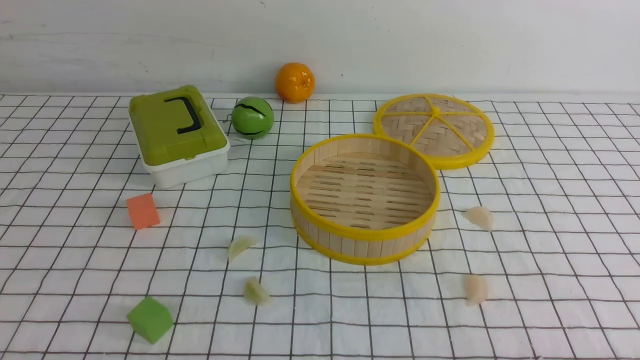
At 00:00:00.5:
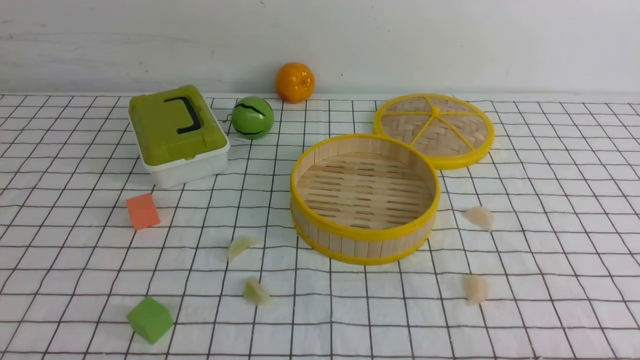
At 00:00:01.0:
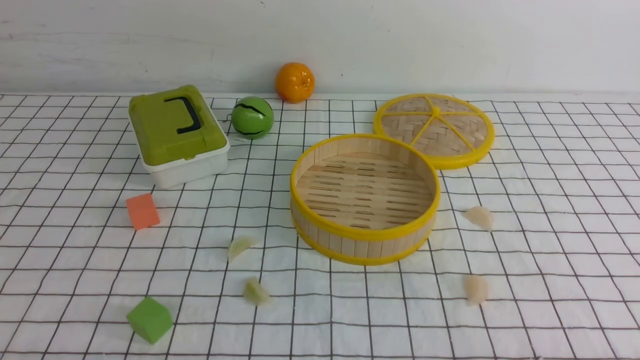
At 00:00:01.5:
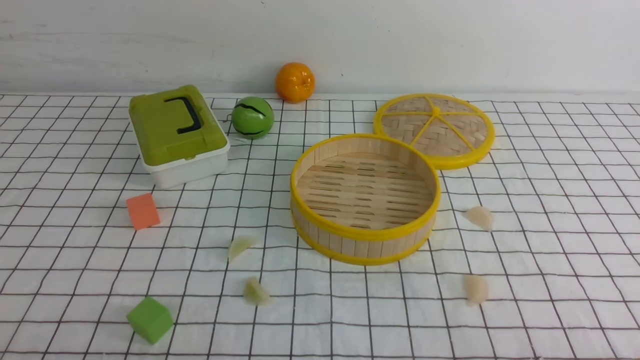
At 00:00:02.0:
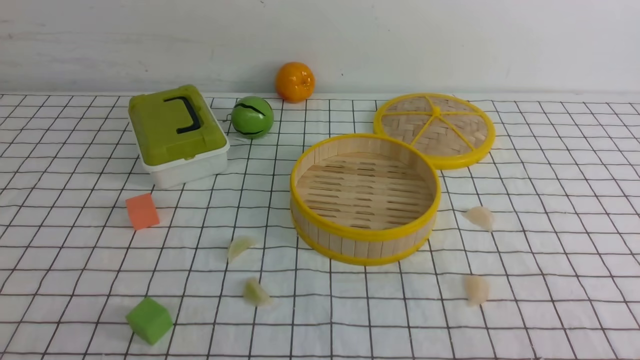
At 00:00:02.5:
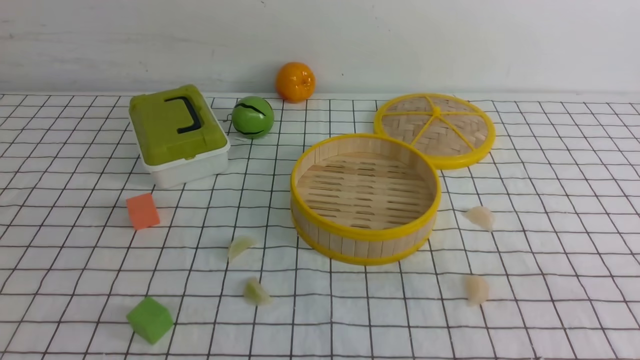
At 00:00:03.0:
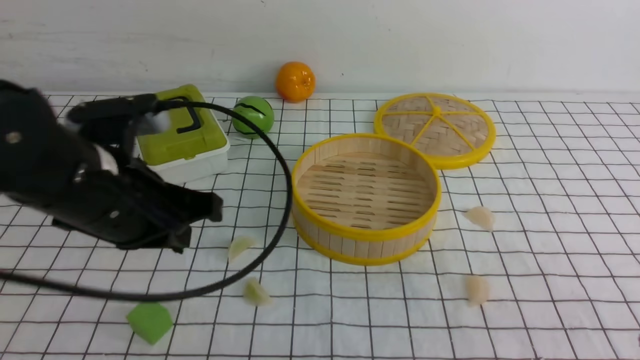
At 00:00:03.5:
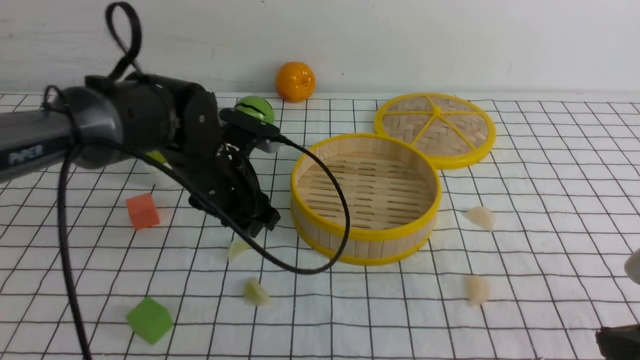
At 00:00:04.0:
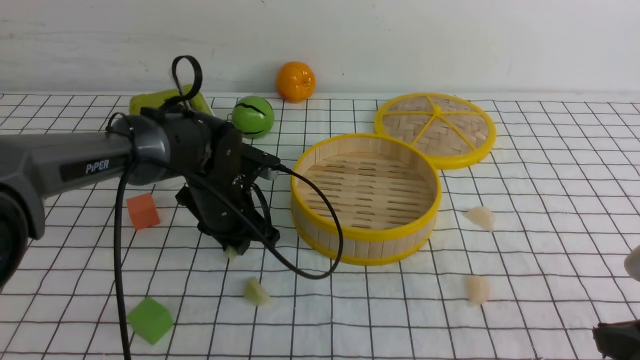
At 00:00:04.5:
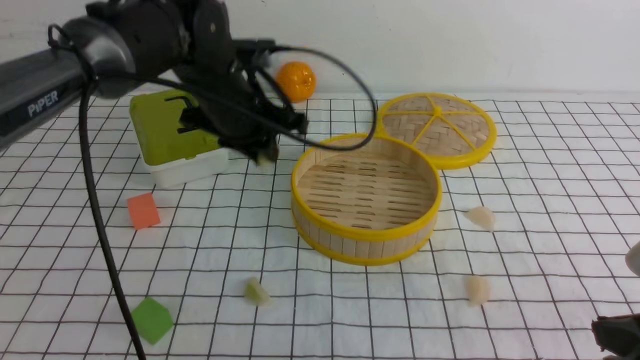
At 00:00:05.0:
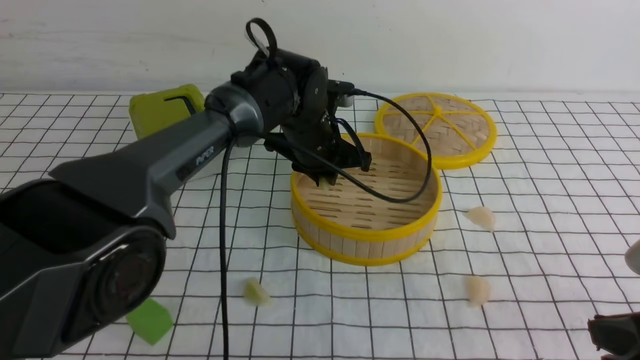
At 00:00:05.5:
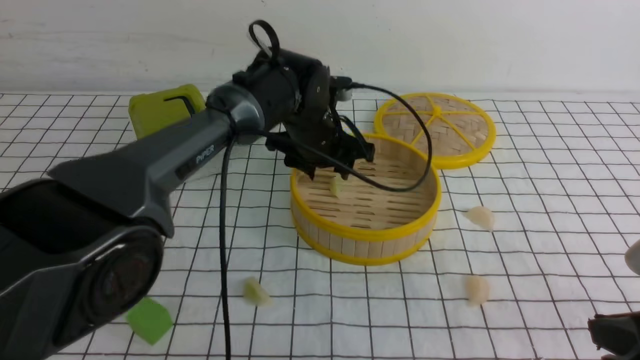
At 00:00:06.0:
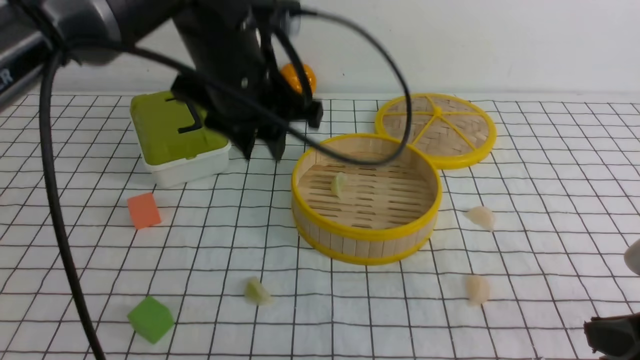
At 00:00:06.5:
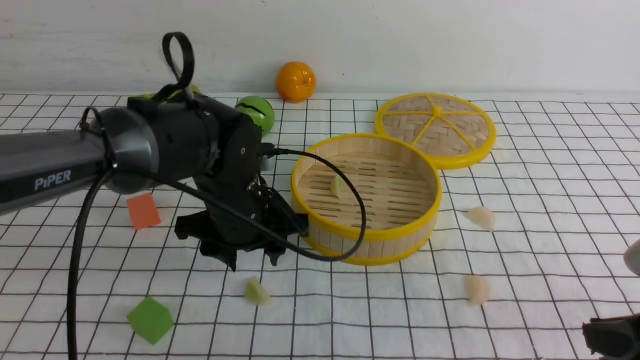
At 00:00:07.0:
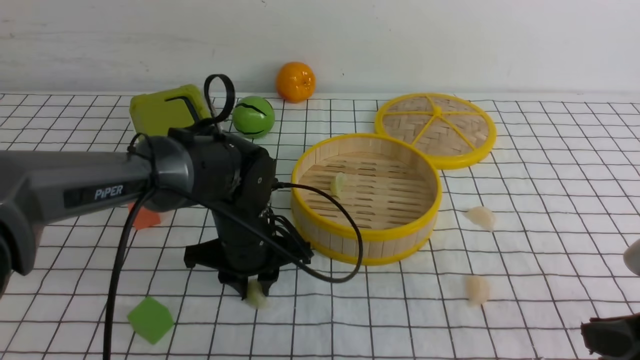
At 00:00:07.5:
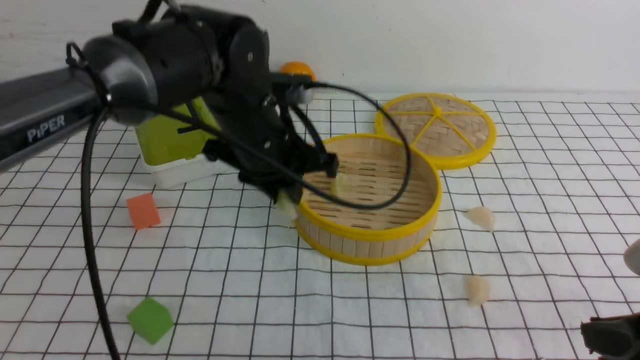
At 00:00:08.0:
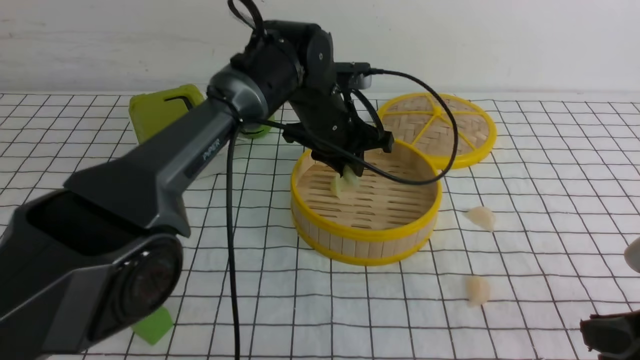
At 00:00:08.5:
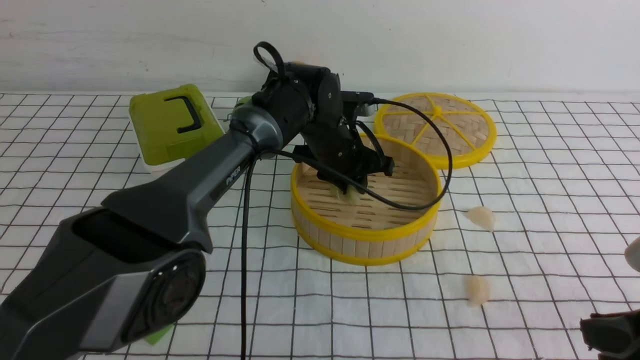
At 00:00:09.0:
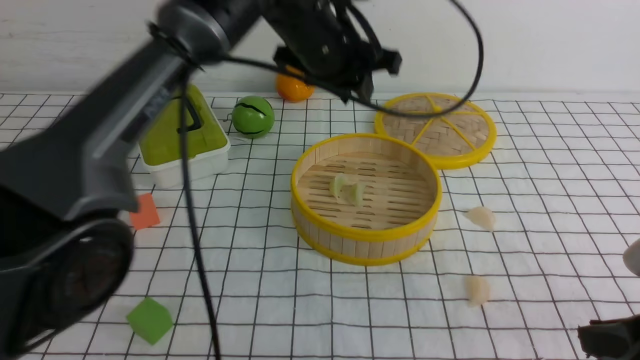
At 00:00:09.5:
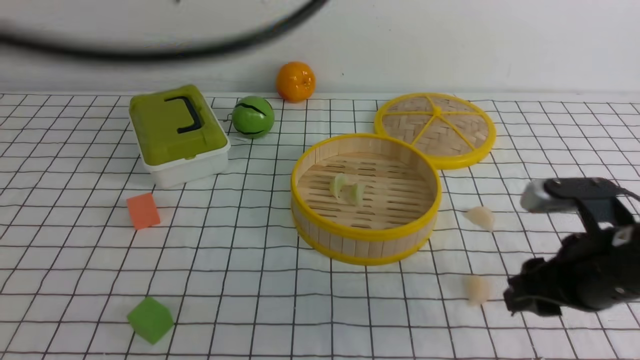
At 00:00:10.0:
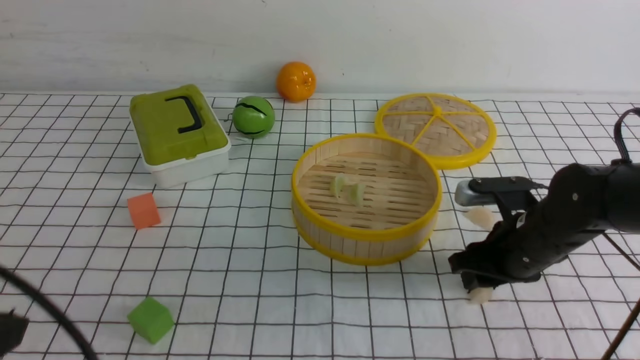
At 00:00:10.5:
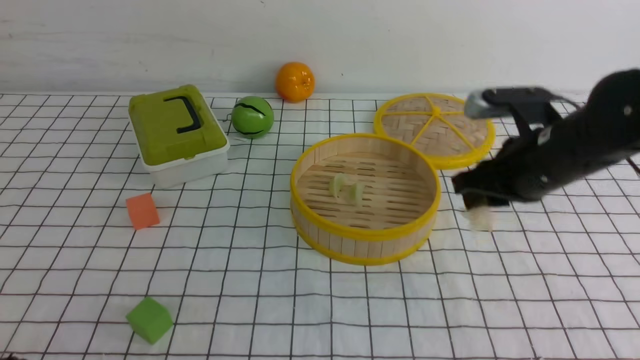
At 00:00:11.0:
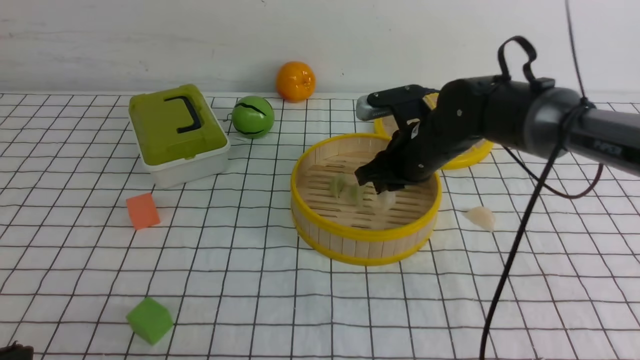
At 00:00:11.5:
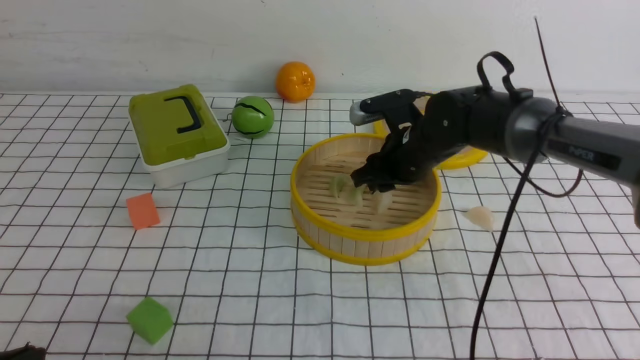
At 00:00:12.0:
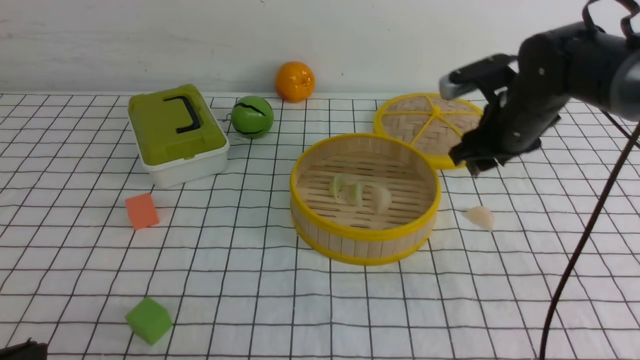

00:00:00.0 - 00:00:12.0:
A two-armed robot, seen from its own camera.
Task of the whole recording: put the dumplings into the steamer on the table with the white tablecloth.
Step, 00:00:00.0 - 00:00:04.0: use the left arm to grab a dumpling.
Step, 00:00:04.5 - 00:00:05.5: use the left arm to put the dumpling into the steamer.
Step, 00:00:06.0 - 00:00:07.0: use the left arm to grab a dumpling.
Step, 00:00:07.5 - 00:00:08.5: use the left arm to put the dumpling into the steamer.
Step, 00:00:09.0 - 00:00:10.0: use the right arm to grab a dumpling.
Step, 00:00:10.5 - 00:00:11.5: use the right arm to put the dumpling into the steamer.
00:00:02.0 - 00:00:04.0: The right gripper heads forward, covering about 10 cm, while the left gripper goes roughly 40 cm forward and to the right.
00:00:04.0 - 00:00:06.0: The left gripper swings up and down, about 15 cm each way, with 2 reversals.
00:00:06.0 - 00:00:08.0: The left gripper travels forward, downward and to the right by some 15 cm.
00:00:08.0 - 00:00:10.0: The right gripper heads forward and downward, covering roughly 20 cm, and opens its fingers. Meanwhile the left gripper is displaced backward and to the left by approximately 40 cm, and closes.
00:00:10.0 - 00:00:12.0: The left gripper goes about 5 cm downward. The right gripper is displaced forward and upward by roughly 15 cm.

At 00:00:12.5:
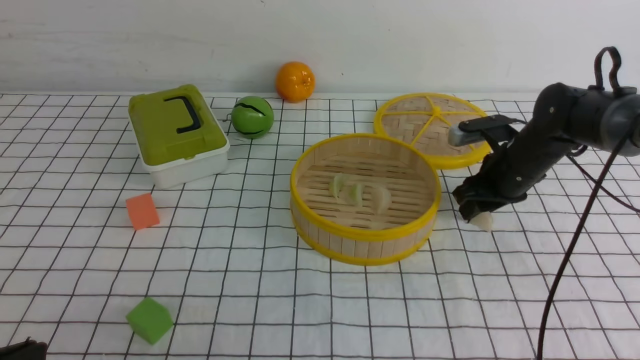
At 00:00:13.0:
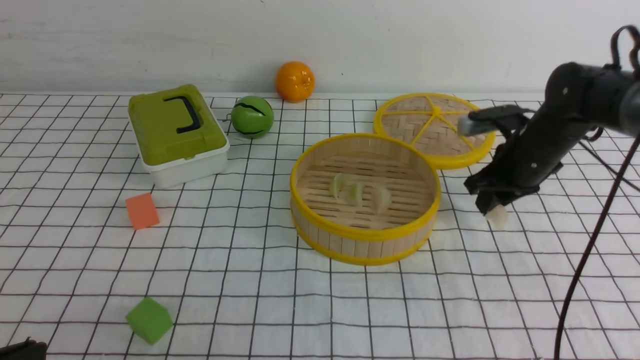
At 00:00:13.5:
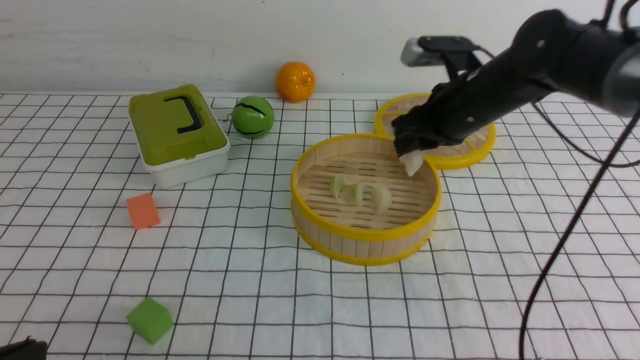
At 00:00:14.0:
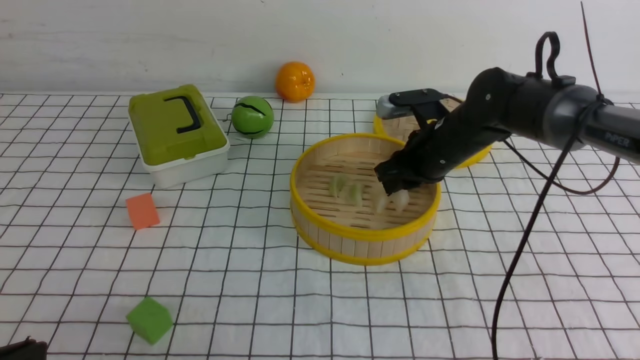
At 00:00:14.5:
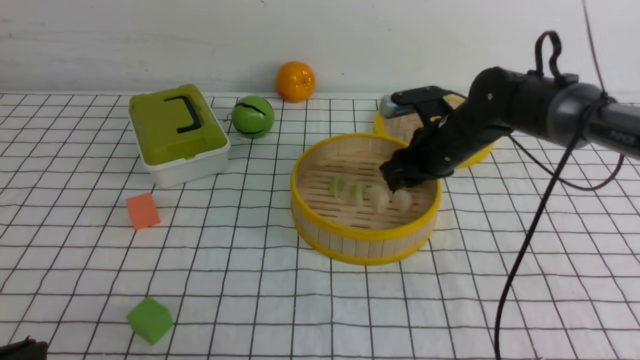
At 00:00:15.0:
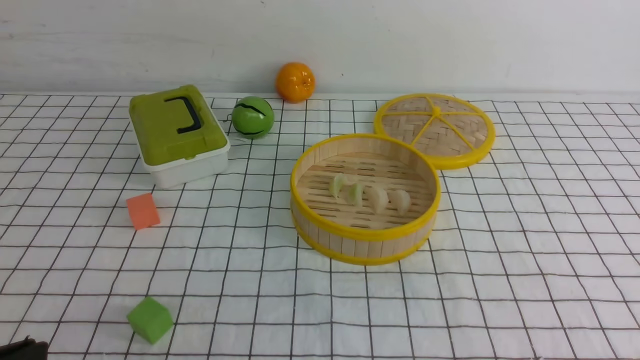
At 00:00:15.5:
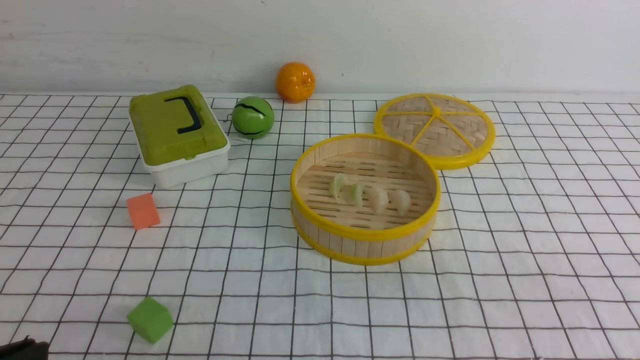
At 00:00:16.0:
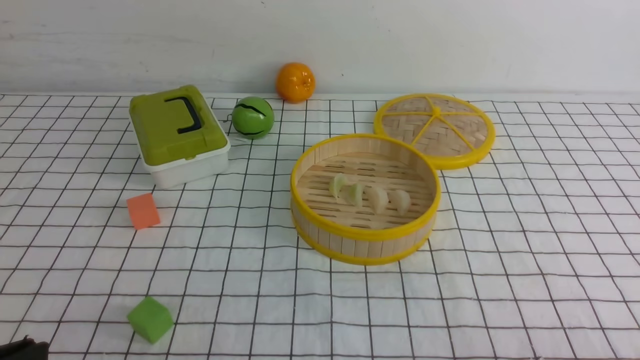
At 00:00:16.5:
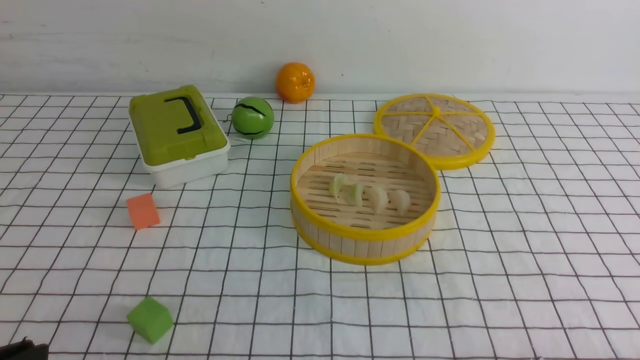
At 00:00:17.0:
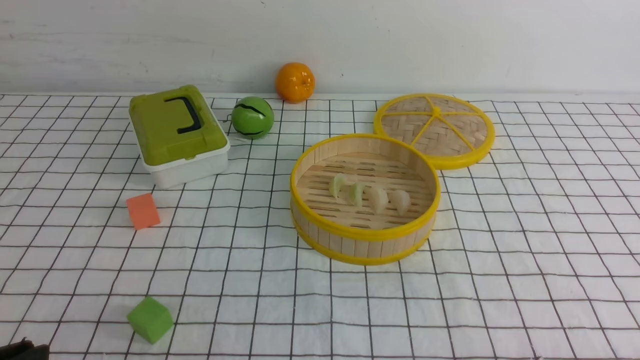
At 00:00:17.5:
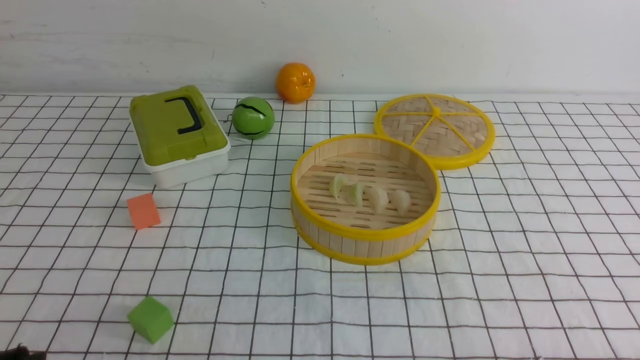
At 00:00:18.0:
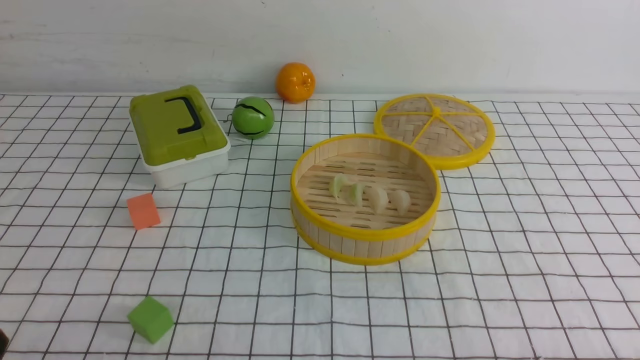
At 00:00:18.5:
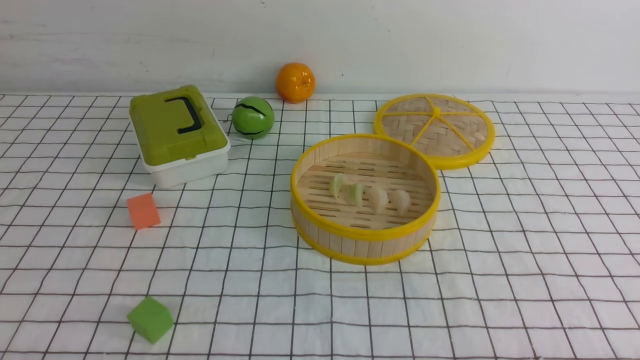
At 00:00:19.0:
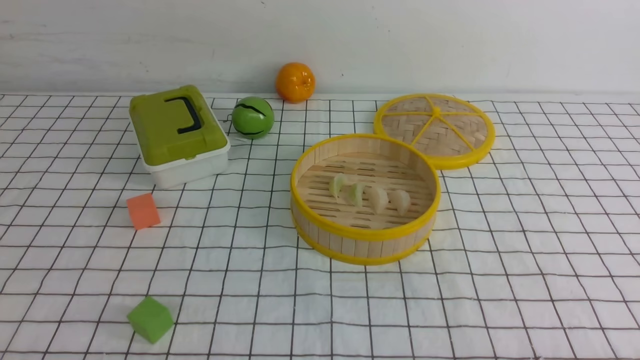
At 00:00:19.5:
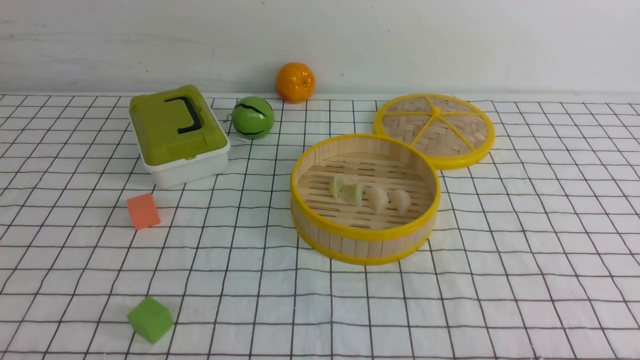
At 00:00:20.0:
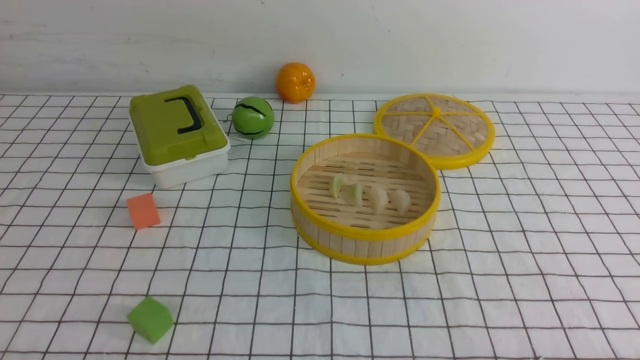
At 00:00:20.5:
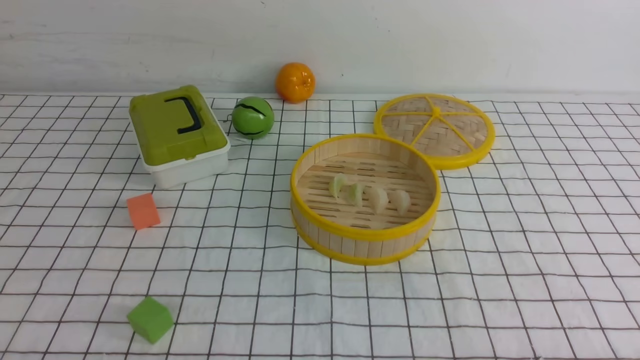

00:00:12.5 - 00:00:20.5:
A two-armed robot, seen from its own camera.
Task of the whole recording: put the dumplings into the steamer on the table with the white tablecloth.
Step, 00:00:13.0 - 00:00:14.5: use the right arm to put the dumpling into the steamer.
00:00:12.5 - 00:00:14.5: The right gripper shifts roughly 10 cm to the left and upward.
00:00:14.5 - 00:00:16.5: The right gripper goes some 40 cm backward, and closes.
00:00:18.5 - 00:00:20.5: Neither gripper changes place.
